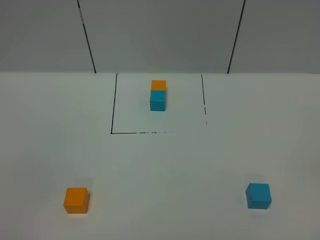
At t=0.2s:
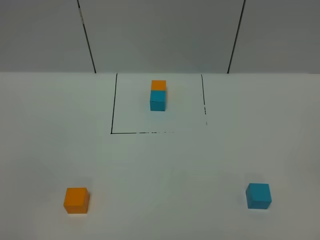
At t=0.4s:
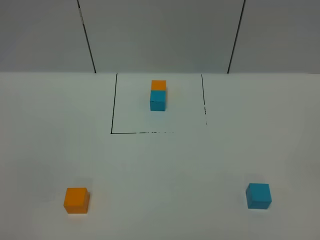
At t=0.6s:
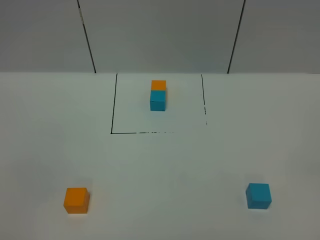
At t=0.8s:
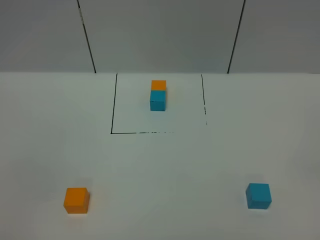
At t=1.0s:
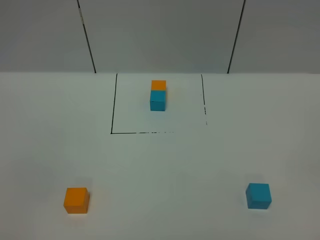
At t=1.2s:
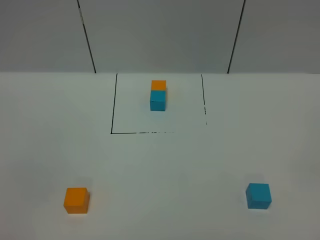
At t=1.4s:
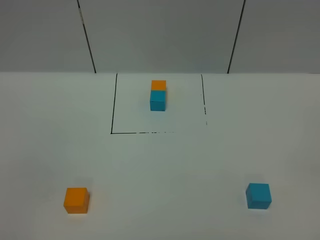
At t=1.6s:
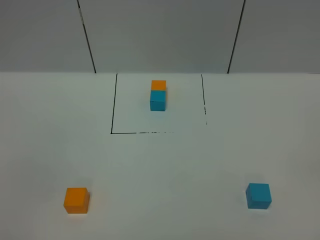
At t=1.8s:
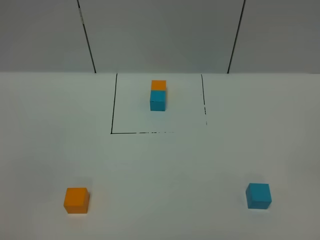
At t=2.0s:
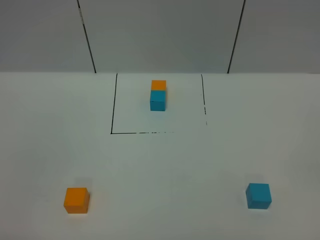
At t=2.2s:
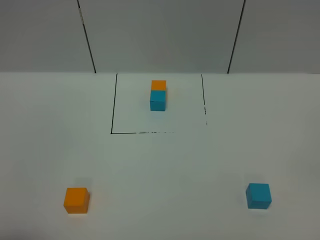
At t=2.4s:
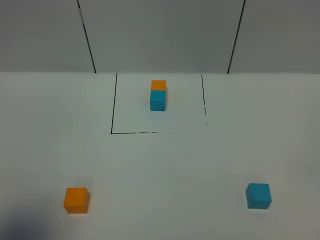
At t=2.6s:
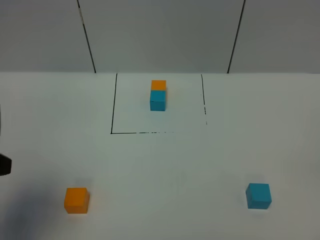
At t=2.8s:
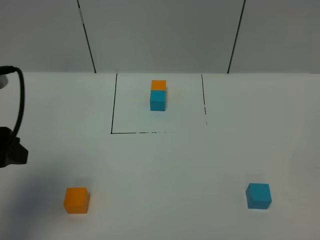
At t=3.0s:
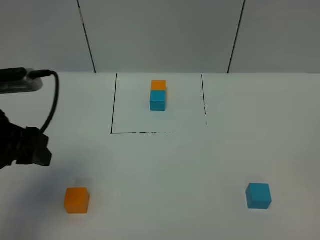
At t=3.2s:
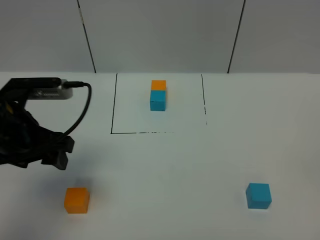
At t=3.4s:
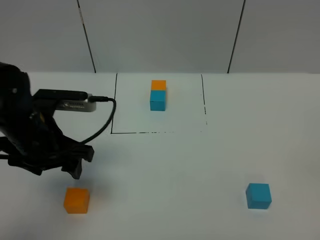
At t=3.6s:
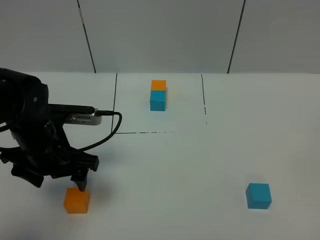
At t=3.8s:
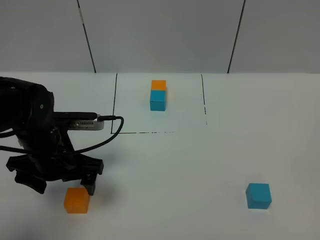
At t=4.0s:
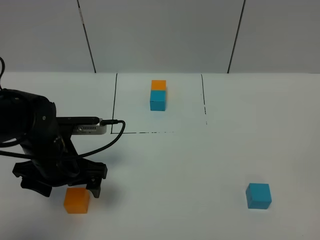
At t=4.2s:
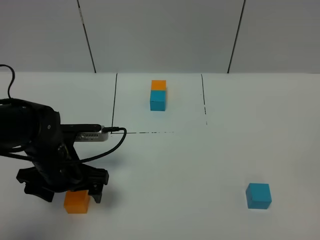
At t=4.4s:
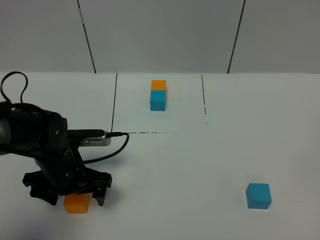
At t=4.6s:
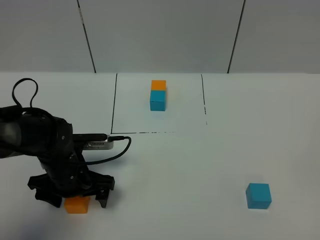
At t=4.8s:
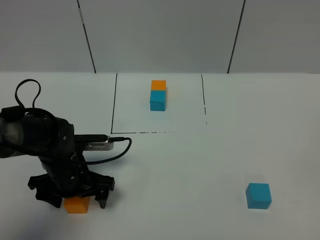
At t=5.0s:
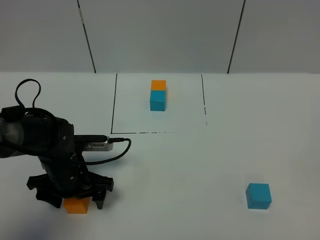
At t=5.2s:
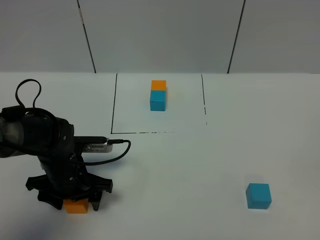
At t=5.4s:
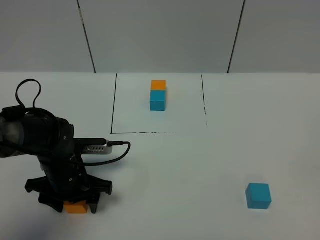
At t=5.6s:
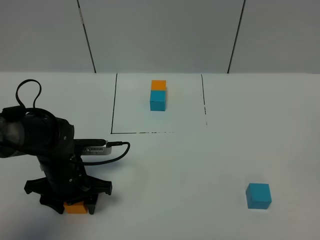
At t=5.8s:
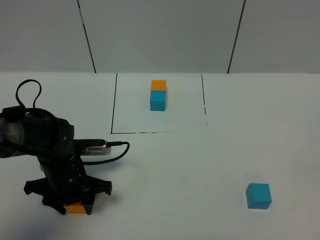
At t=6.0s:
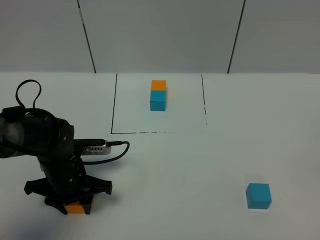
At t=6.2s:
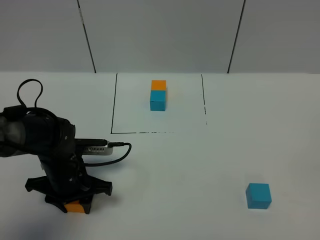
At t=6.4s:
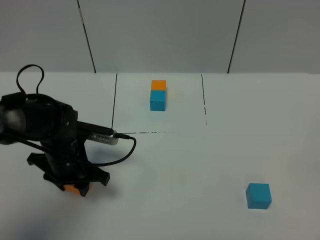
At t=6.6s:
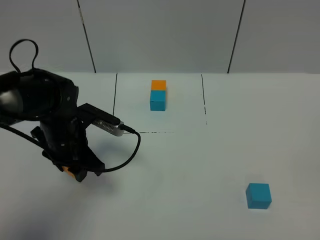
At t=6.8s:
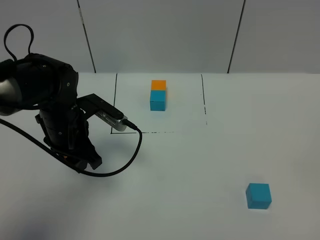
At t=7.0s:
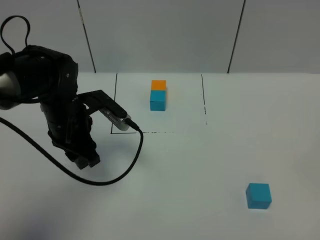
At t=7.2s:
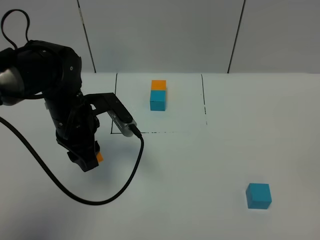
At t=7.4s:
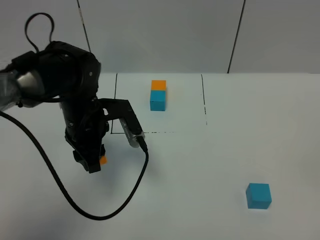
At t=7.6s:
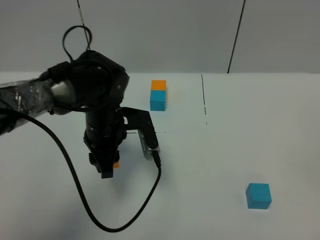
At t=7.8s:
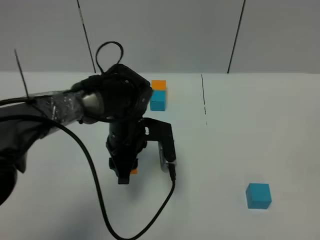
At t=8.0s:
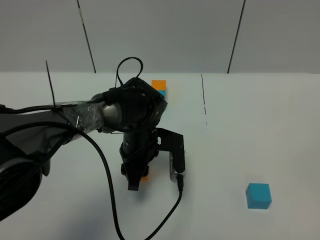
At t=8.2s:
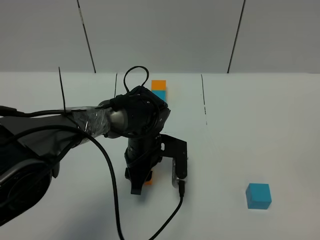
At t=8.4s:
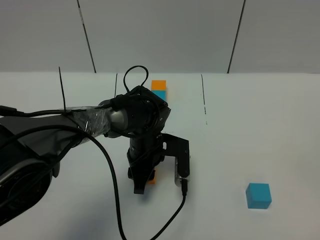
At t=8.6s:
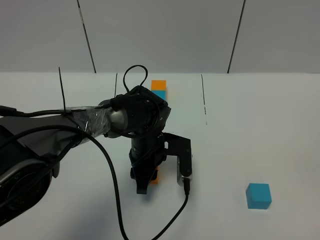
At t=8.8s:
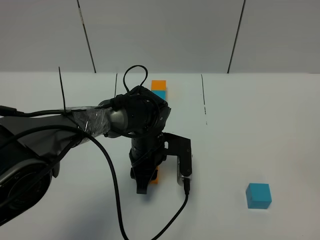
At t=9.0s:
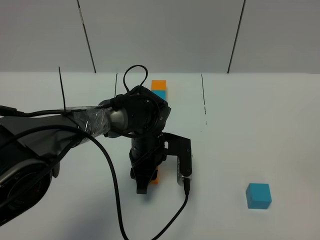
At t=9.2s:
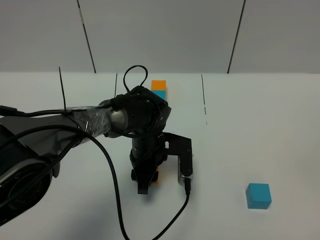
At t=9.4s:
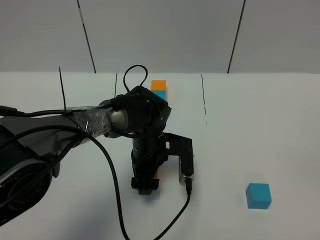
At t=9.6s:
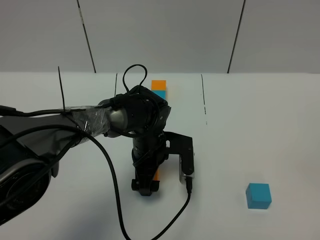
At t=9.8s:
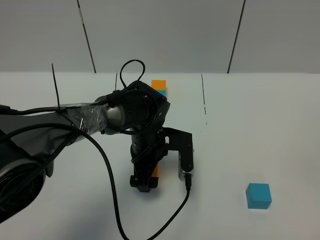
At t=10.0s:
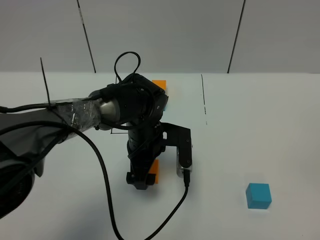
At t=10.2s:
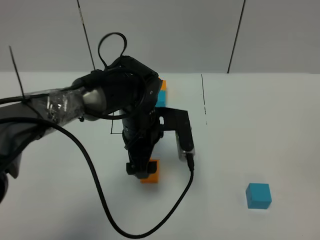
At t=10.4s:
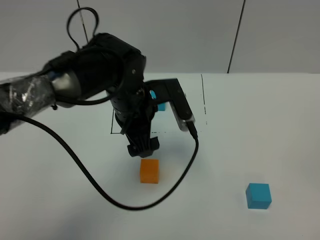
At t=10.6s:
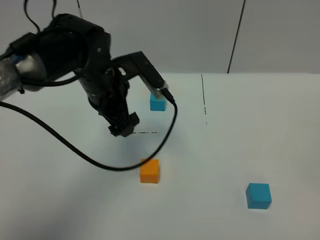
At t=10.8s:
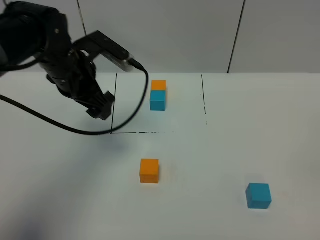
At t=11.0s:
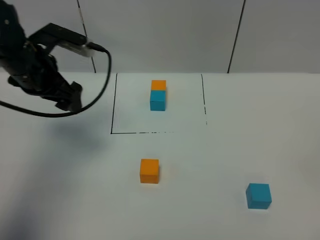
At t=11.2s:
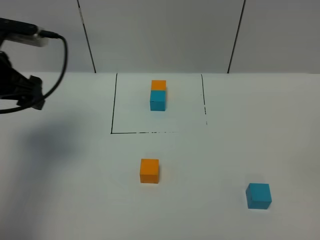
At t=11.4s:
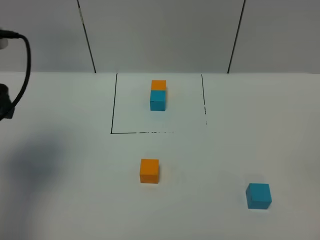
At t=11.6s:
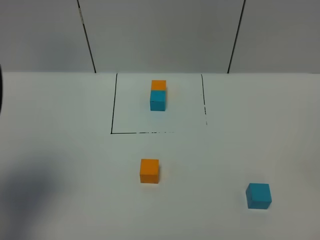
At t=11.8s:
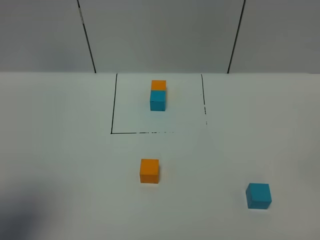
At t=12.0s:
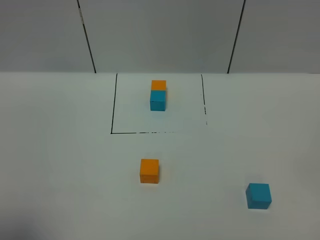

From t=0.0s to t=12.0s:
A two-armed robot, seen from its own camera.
Task of the whole recording: According to the building block template in front, assemble the scattered blocks together.
Step, from t=2.6s to t=10.0s: Put the orange cube in the center of the table.
From t=0.0s to t=1.6s: The two grippers keep their place.
From t=1.6s to t=3.0s: The left gripper goes approximately 25 cm forward.
From t=3.0s to t=4.4s: The left gripper goes about 20 cm downward and to the right, and opens.
From t=4.4s to t=6.0s: The left gripper closes.
From t=6.0s to t=7.6s: The left gripper goes approximately 15 cm to the right, upward and forward.
From t=7.6s to t=9.0s: The left gripper heads downward and to the right, covering approximately 10 cm.
From t=9.0s to t=10.4s: The left gripper moves upward, roughly 15 cm, and opens its fingers.
From t=10.4s to t=12.0s: The left gripper travels backward, to the left and upward by some 40 cm.

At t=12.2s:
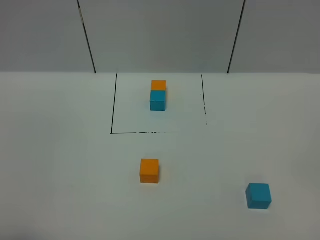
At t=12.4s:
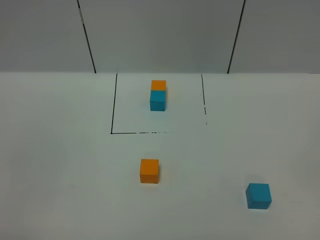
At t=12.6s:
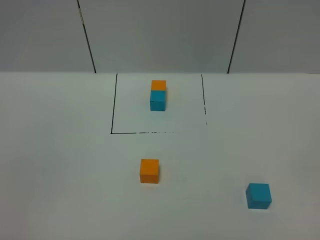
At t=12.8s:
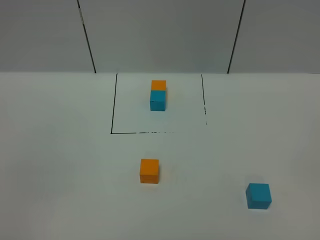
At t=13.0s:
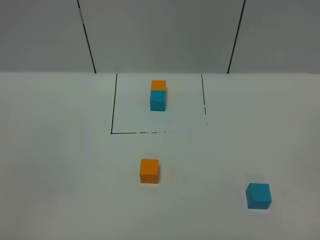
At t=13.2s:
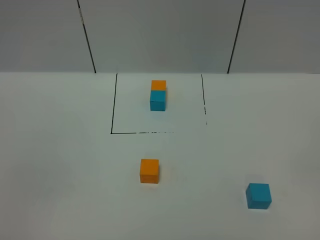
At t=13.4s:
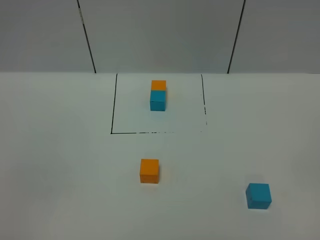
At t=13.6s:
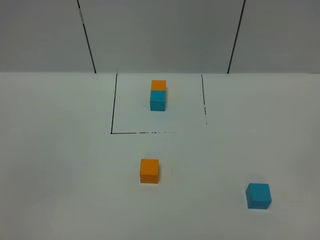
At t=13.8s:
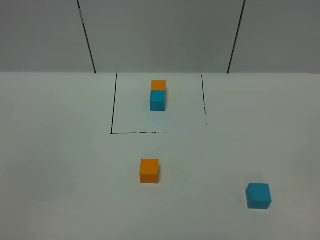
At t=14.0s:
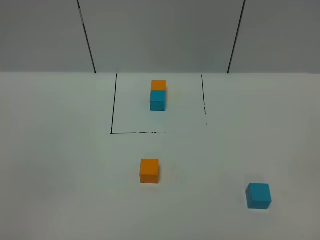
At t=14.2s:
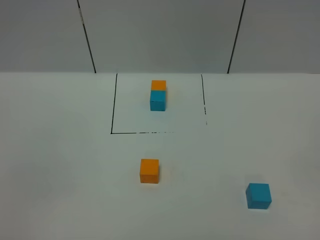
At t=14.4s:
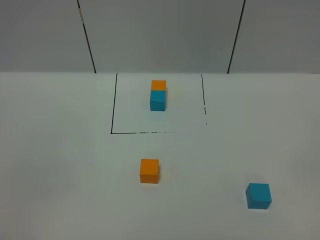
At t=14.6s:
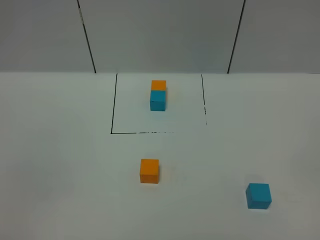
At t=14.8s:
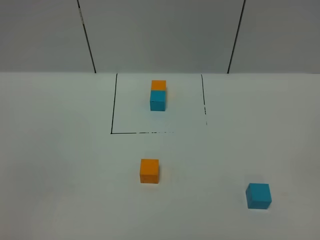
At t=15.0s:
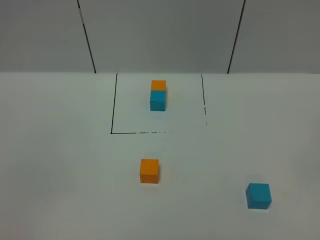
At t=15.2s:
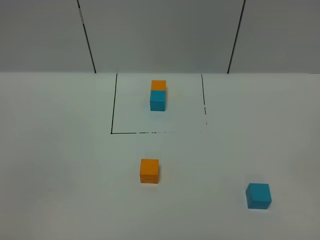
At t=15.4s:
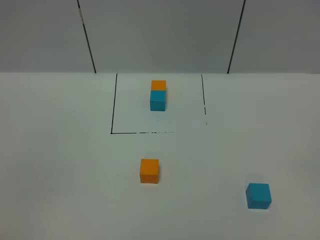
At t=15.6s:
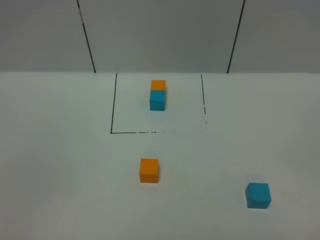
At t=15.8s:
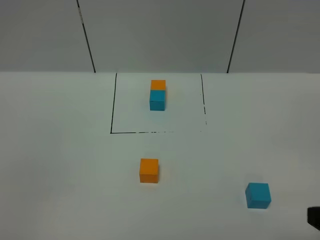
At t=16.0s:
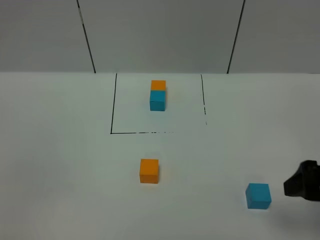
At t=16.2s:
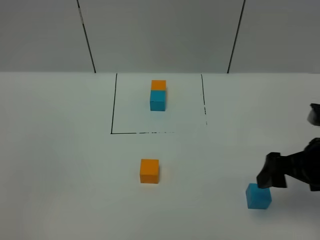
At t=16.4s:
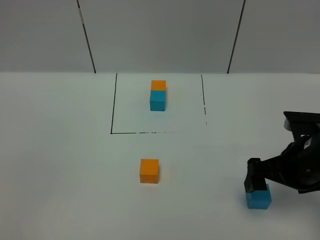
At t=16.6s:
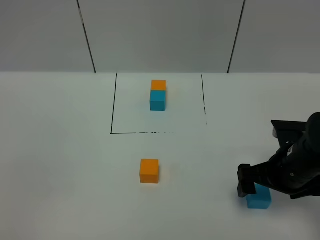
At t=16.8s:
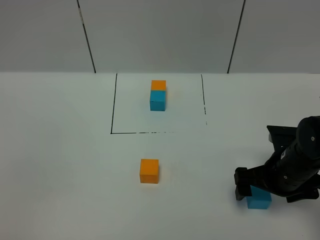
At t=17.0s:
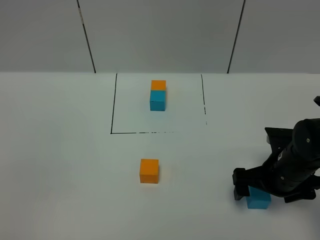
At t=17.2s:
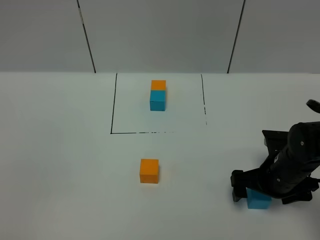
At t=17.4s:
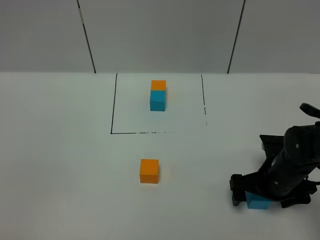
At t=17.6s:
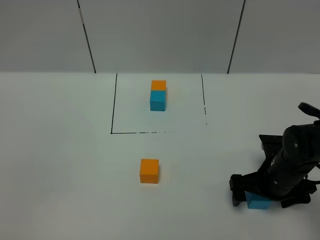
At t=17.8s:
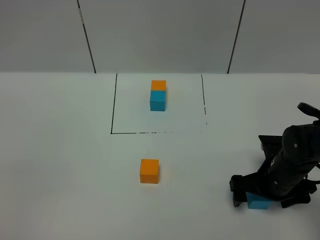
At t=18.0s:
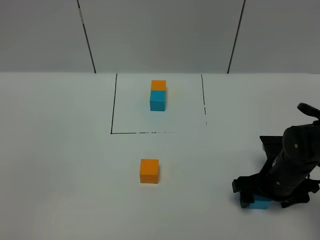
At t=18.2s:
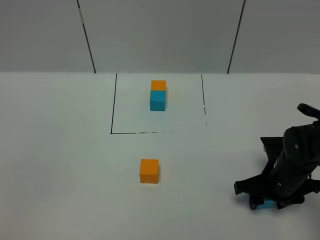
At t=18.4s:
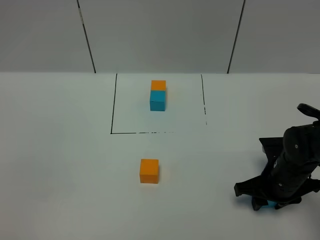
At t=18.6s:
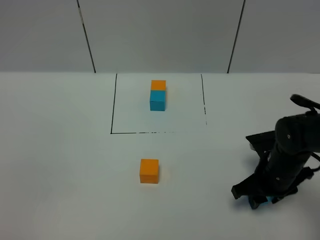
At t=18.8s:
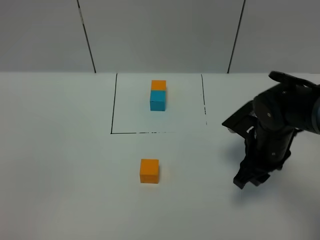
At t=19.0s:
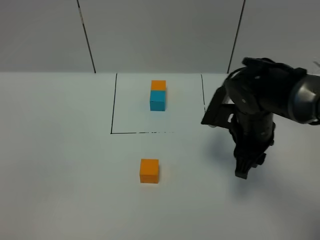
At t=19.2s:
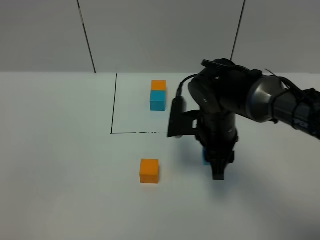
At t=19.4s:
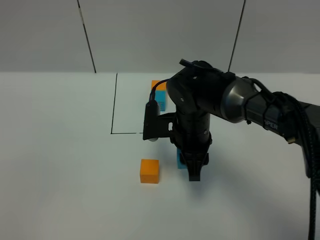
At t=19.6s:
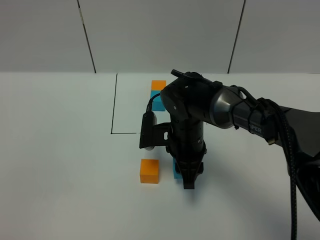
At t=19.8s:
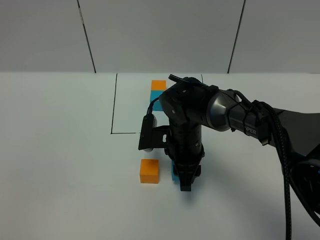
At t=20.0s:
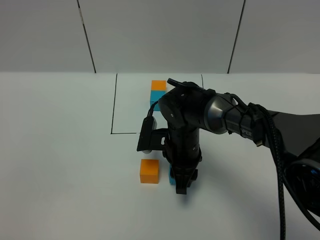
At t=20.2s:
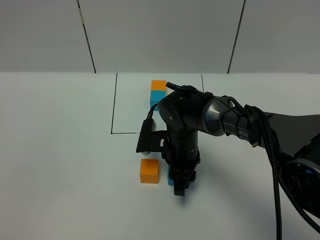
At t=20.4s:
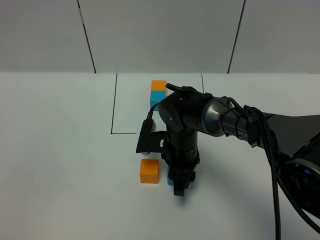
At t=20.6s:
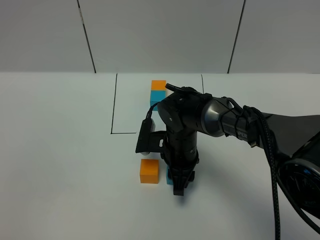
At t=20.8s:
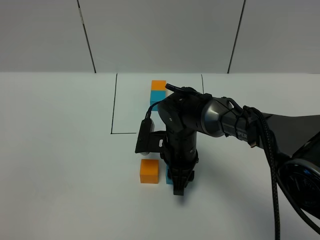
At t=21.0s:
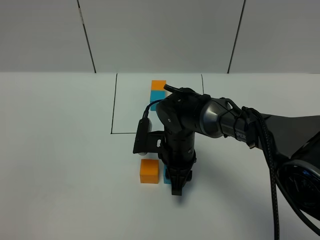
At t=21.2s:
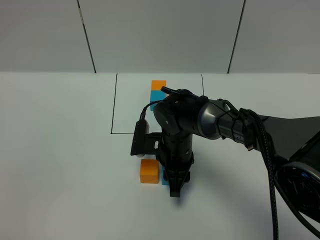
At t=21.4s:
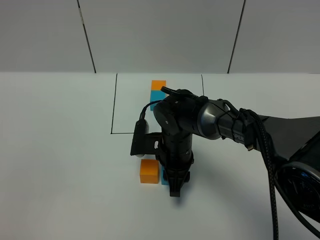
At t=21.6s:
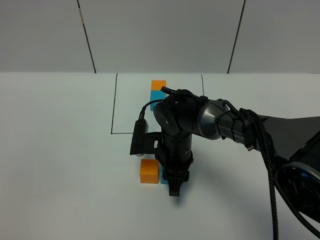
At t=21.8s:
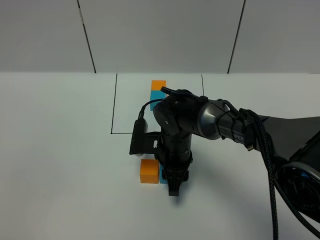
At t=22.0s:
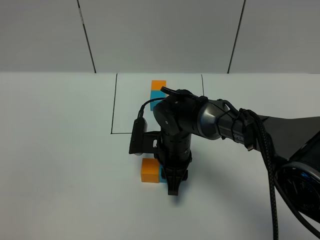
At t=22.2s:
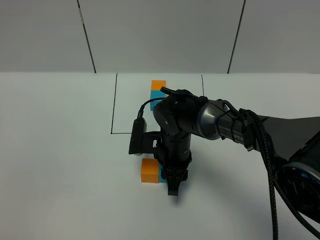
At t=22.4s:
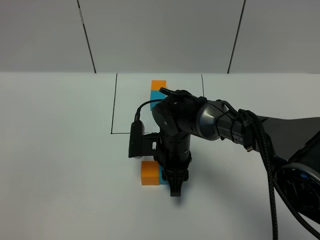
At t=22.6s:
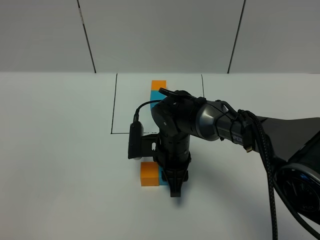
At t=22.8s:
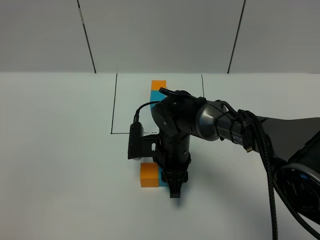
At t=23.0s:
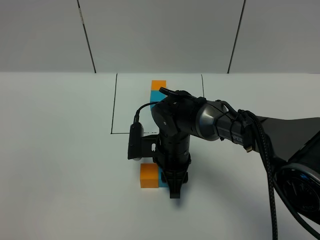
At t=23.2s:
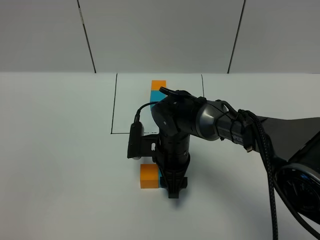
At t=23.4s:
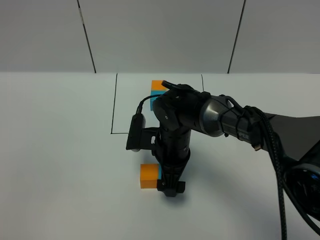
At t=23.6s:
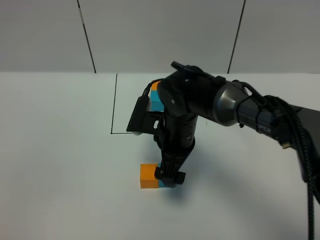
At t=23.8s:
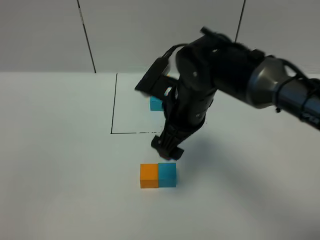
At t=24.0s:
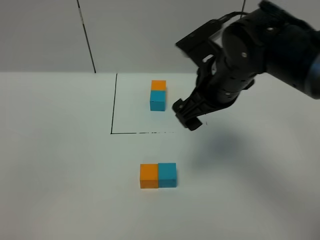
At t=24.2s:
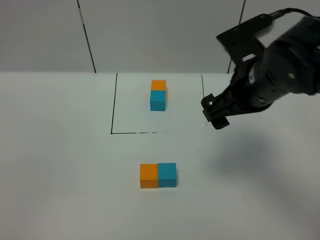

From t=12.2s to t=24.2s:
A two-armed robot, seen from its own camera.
Task of the whole recording: According to the building block template in front, assemble the scattered blocks together.
Step, from t=12.2s to t=23.8s: Put the blue cube on the right of the orange cube.
From t=13.8s to t=15.2s: Both grippers stay put.
From t=15.2s to t=16.6s: The right gripper moves forward, some 25 cm.
From t=16.6s to t=18.2s: The right gripper goes about 5 cm downward, and closes up.
From t=18.2s to t=19.8s: The right gripper travels to the left by about 20 cm.
From t=19.8s to t=22.6s: There are only small adjustments of the grippers.
From t=22.6s to t=24.2s: The right gripper travels upward and to the right by approximately 25 cm, and opens its fingers.
